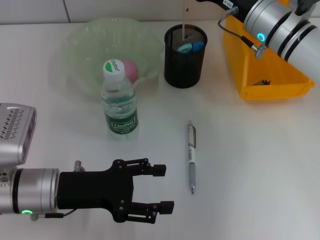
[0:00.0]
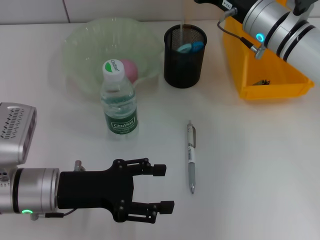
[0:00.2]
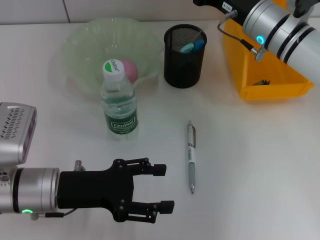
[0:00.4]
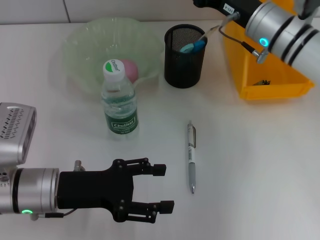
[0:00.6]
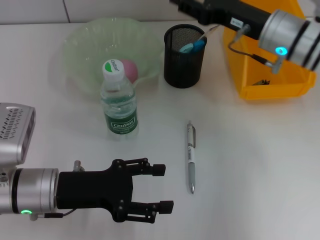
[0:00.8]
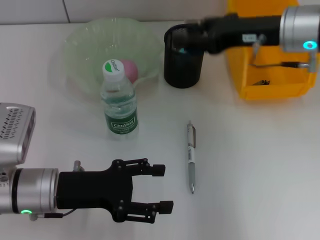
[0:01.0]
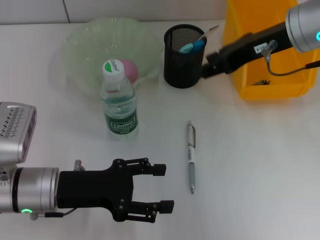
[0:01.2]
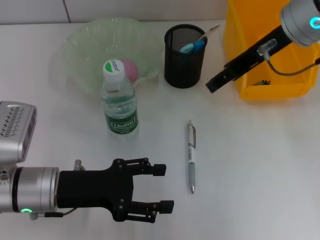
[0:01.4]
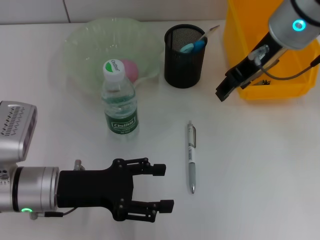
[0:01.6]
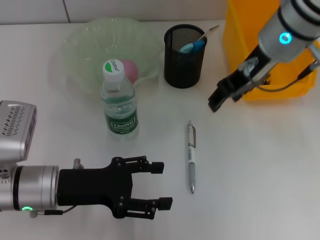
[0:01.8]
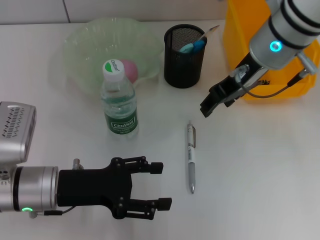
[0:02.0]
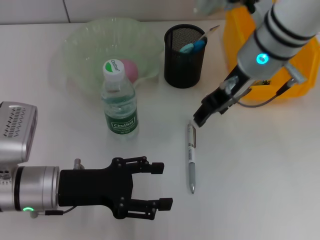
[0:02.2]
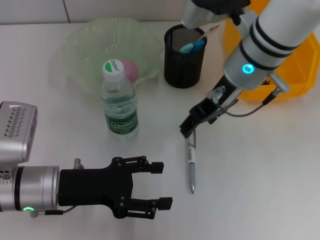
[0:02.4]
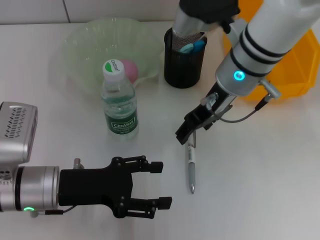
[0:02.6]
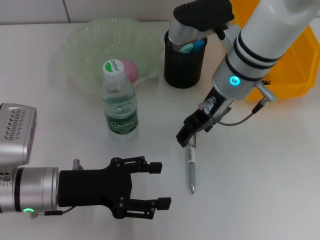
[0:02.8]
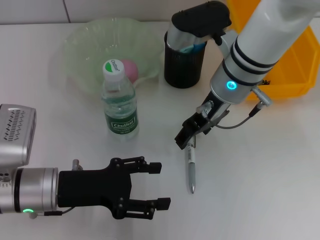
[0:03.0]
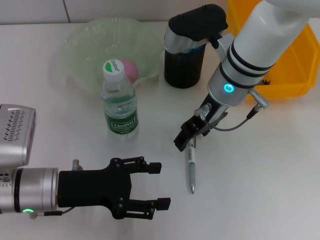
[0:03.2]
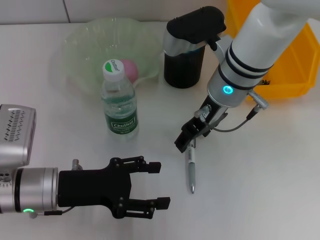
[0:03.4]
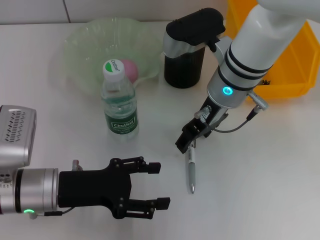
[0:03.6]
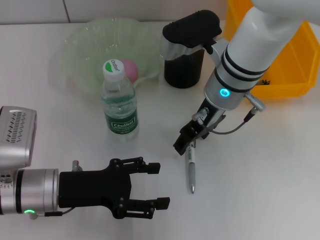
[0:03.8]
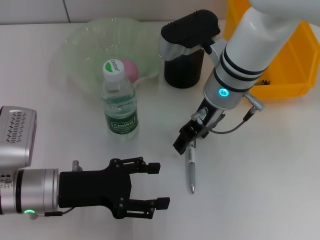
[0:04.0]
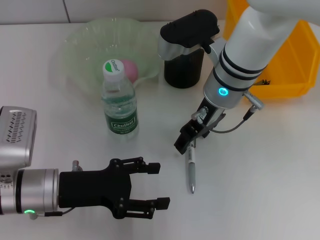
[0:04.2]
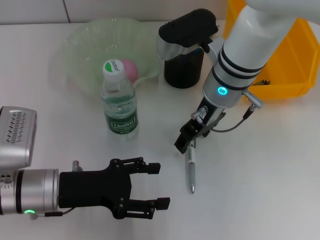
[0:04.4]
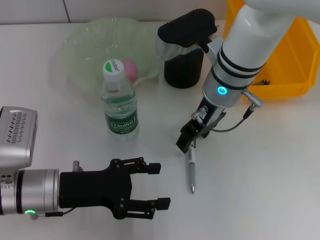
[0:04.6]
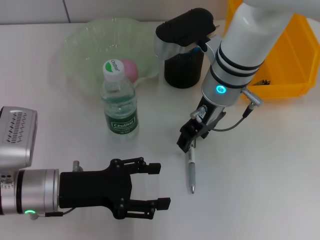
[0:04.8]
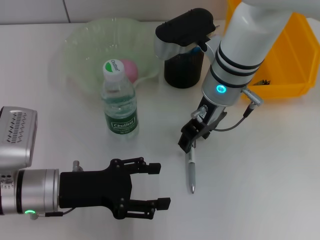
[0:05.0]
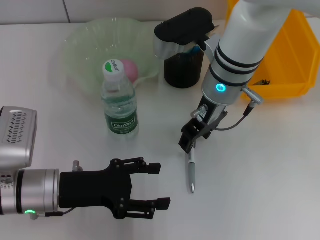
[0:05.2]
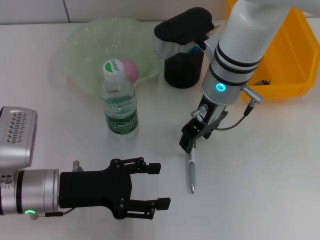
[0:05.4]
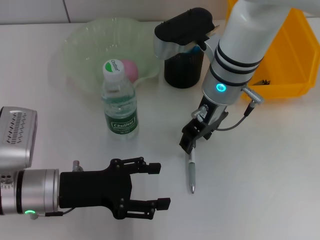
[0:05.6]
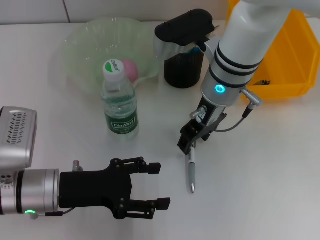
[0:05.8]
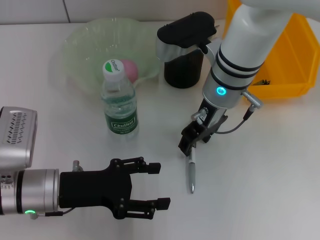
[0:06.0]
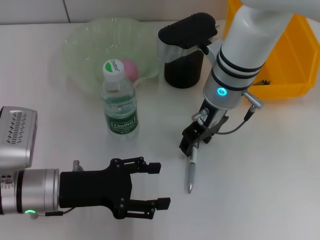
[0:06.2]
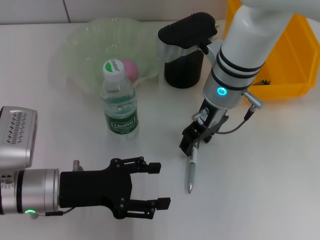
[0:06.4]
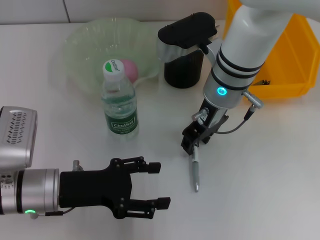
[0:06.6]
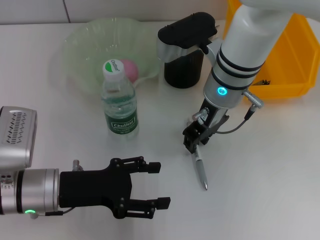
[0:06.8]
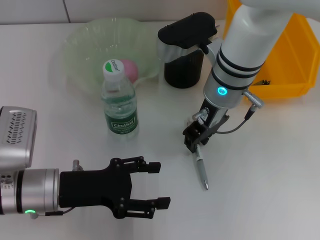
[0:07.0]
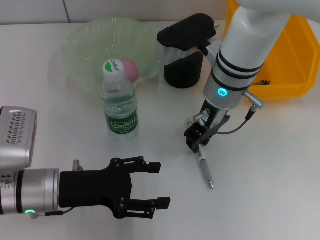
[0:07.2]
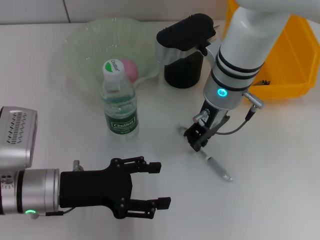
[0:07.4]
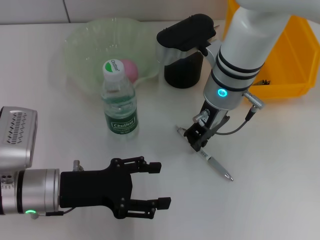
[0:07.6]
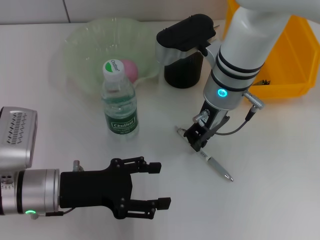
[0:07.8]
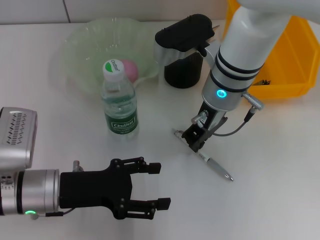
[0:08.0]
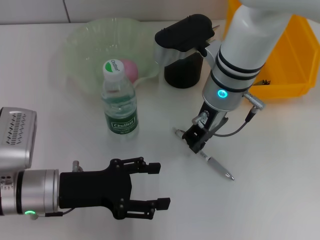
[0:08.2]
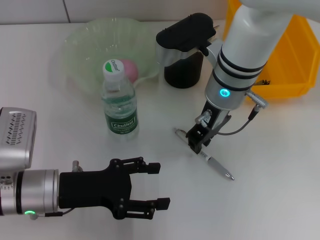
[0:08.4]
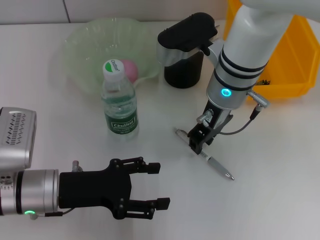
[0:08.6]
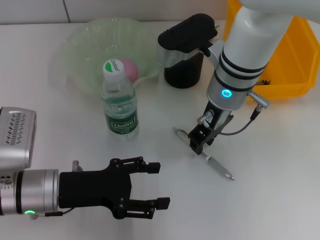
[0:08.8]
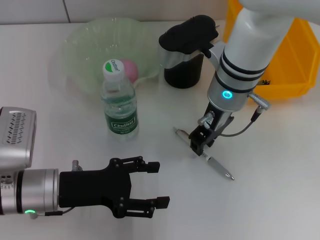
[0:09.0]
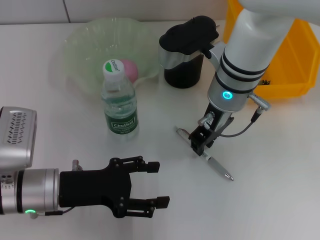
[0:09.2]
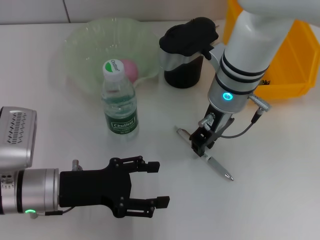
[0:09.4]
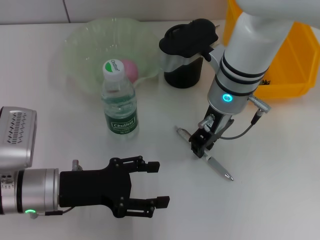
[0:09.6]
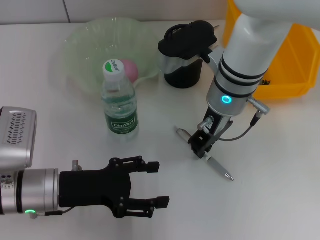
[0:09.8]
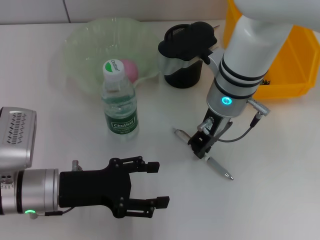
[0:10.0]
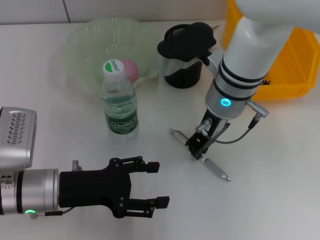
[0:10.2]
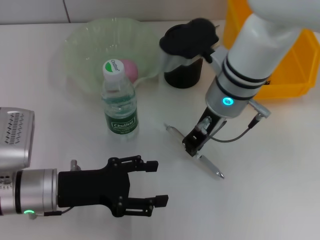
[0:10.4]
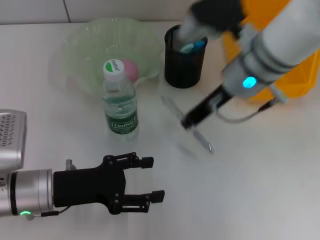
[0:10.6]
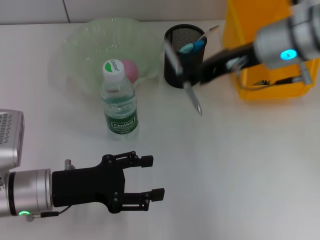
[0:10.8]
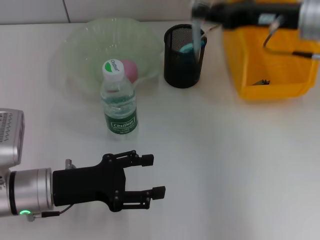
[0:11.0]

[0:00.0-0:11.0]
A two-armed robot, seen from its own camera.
Step, 0.6 to 10.0 s: Grab the gray spring-action pen with the right hand.
0.0 to 1.6 s: The right gripper is displaced upward by about 10 cm.
1.6 to 3.2 s: The right gripper is displaced downward and to the left by roughly 10 cm.
3.2 to 4.8 s: The grippers stay close to where they were, moving slightly.
4.8 to 6.2 s: Both grippers stay put.
6.2 to 7.8 s: The right gripper closes.
7.8 to 9.4 s: The two grippers keep their place.
9.4 to 11.0 s: The right gripper moves to the right and upward, about 15 cm.

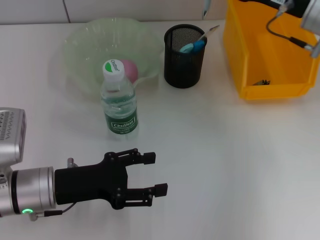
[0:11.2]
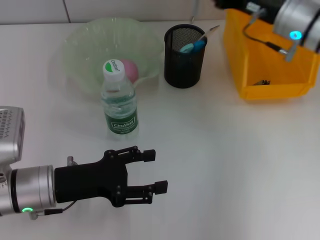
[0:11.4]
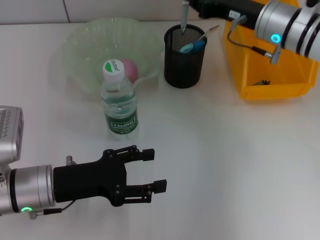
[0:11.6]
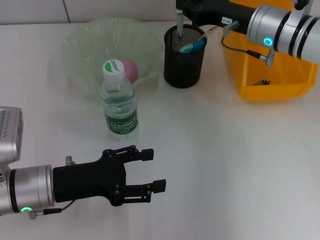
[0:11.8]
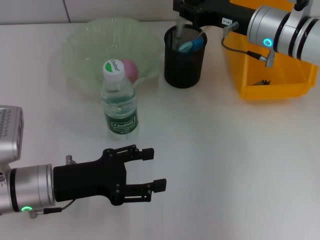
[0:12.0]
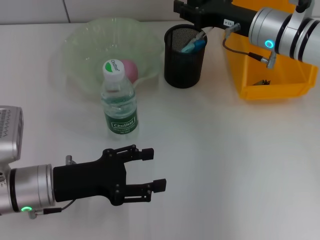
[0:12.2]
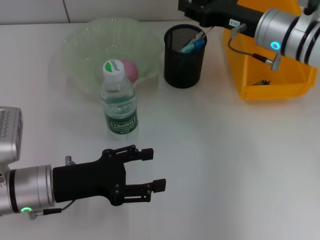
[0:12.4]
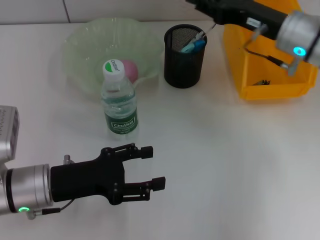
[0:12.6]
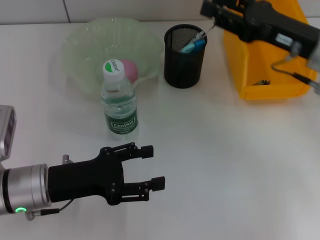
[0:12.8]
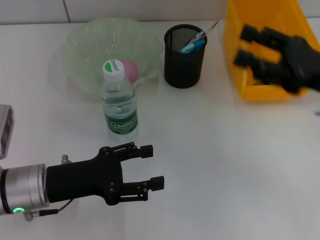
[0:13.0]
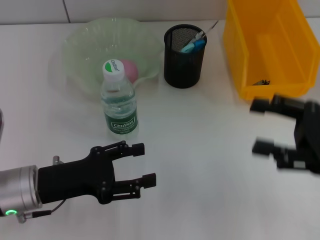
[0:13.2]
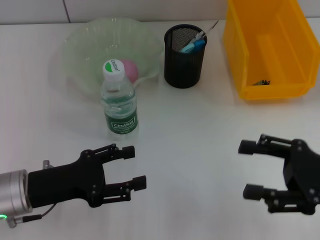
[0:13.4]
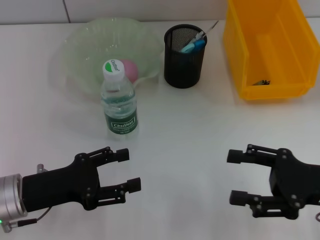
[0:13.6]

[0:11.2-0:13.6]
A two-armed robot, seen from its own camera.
Step, 11.2 to 12.2 s: Place the gray spring-action pen into the pen holder with the right hand.
11.2 to 12.4 s: The right gripper shifts by about 5 cm, and opens.
12.4 to 13.6 s: The right gripper travels backward and to the right by some 20 cm, and opens its fingers.

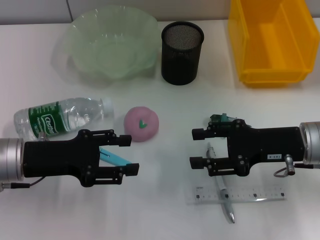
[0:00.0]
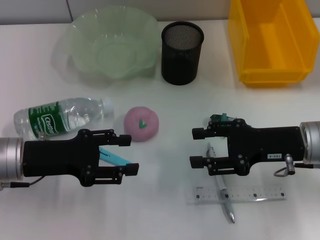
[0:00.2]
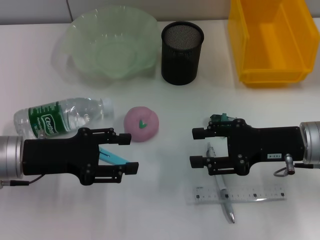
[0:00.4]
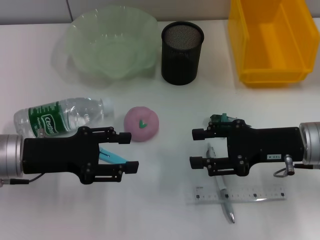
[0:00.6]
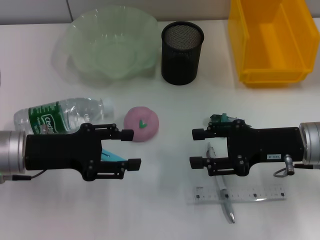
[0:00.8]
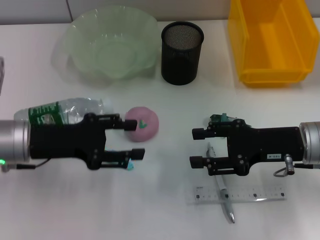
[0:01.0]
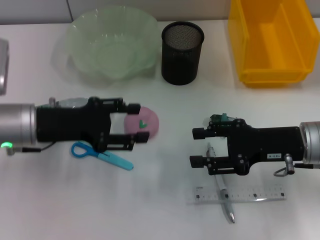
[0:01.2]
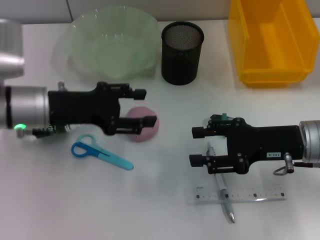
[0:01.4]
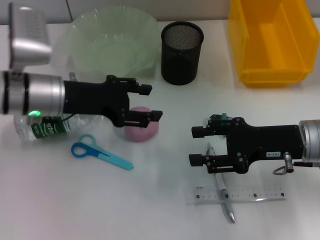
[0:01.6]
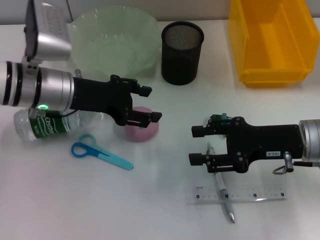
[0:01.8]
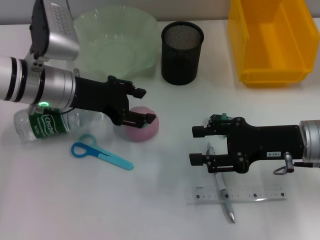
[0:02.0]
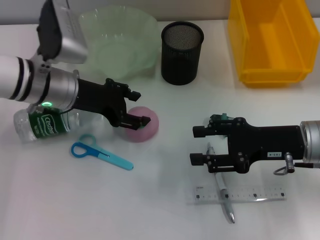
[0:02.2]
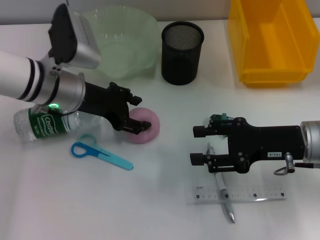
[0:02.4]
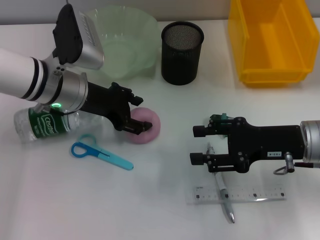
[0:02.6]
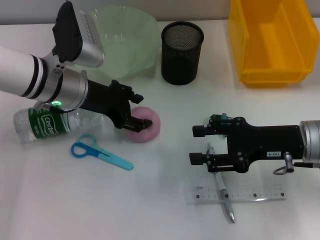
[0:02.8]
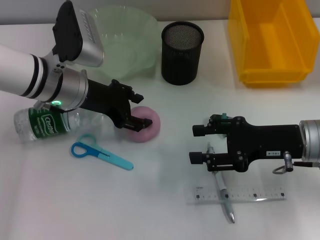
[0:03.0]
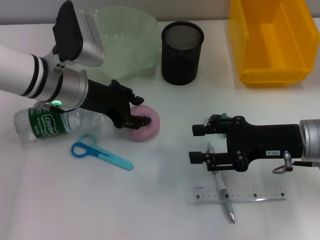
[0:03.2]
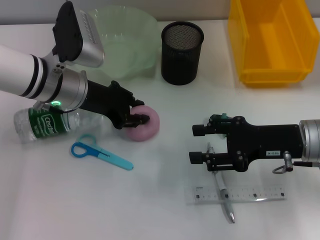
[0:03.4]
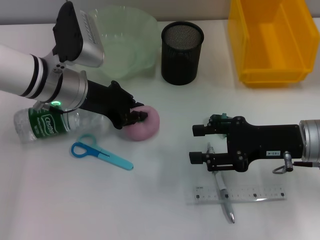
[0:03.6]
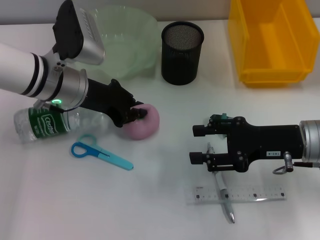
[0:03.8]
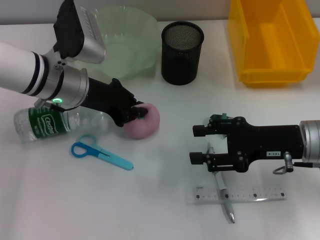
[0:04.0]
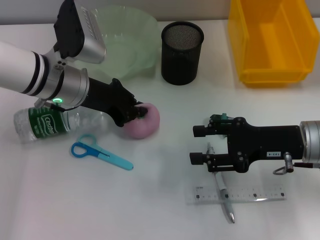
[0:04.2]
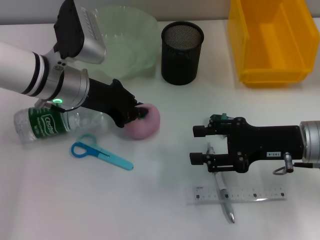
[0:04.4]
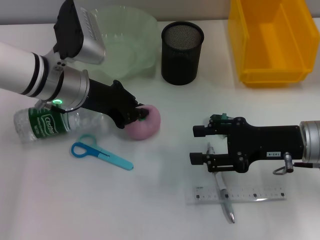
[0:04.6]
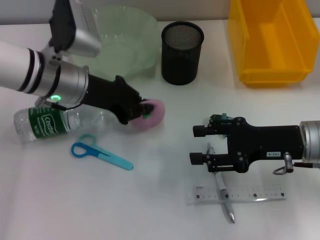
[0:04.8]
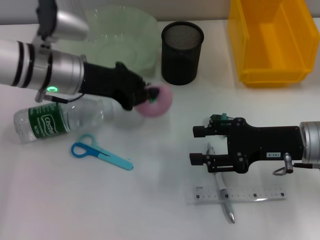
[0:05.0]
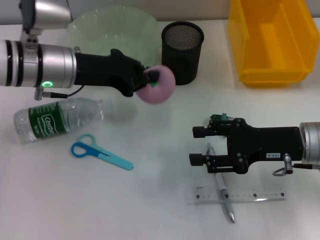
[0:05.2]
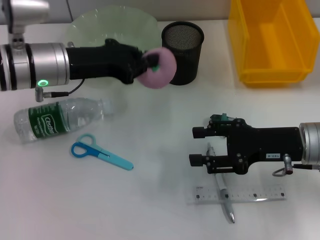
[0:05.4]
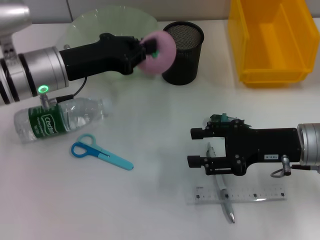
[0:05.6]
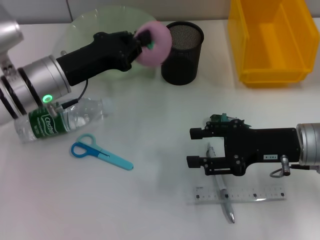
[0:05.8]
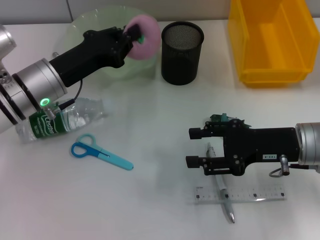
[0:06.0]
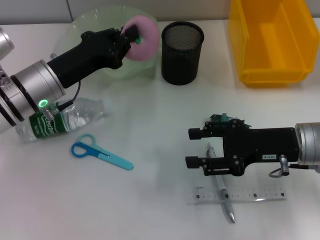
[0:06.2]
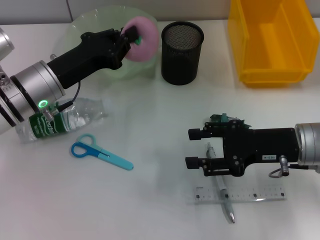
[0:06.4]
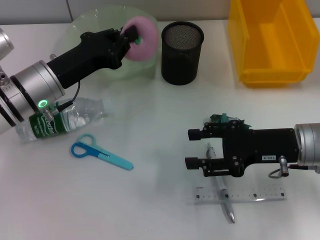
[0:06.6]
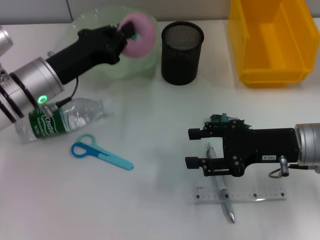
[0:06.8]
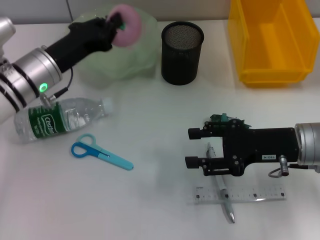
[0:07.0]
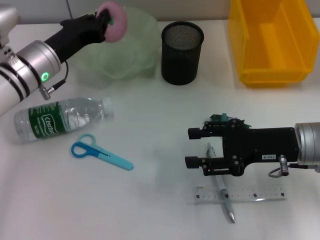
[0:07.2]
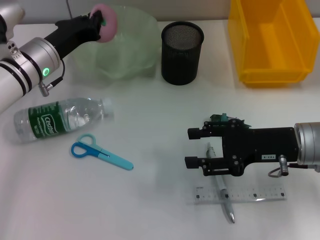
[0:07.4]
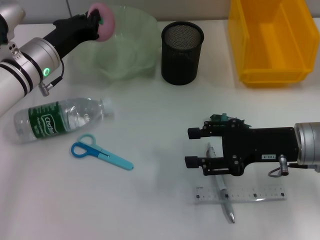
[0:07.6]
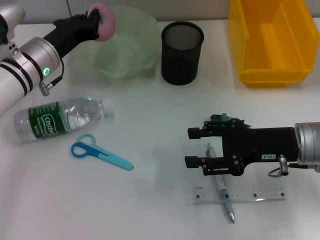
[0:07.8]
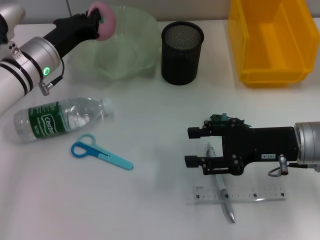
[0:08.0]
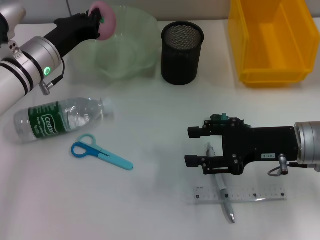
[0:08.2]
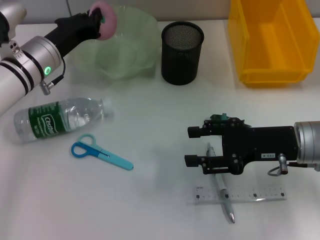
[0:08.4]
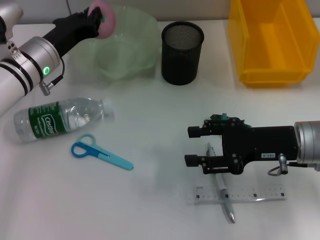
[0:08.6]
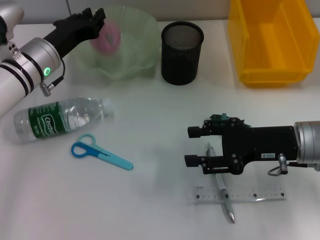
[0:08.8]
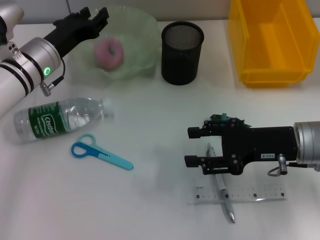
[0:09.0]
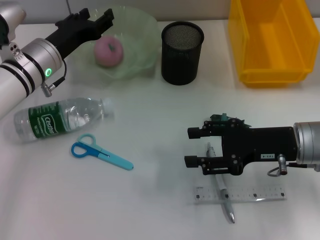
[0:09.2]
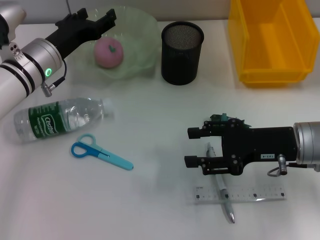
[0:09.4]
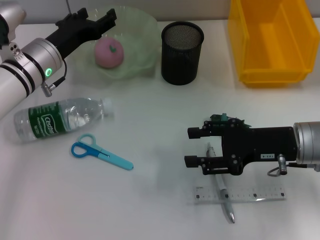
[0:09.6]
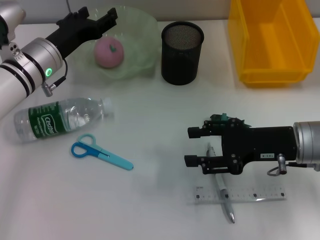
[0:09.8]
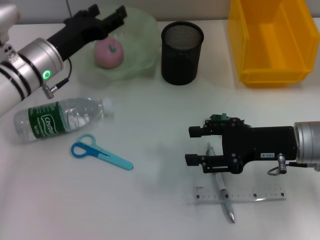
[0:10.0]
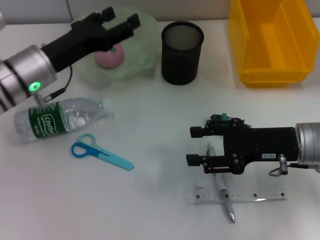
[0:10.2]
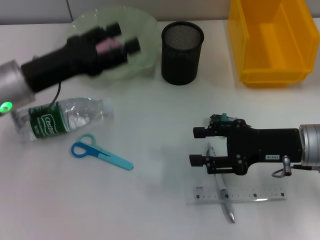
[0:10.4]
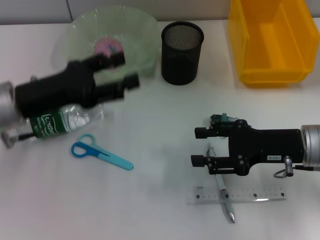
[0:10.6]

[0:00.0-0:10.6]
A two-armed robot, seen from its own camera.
Step, 0.0 to 3.6 s: Grab the peach with the left hand.
Step, 3.8 to 9.2 s: Place the peach into the fruit bowl with the left hand.
0.0 to 1.6 s: The left gripper travels forward by some 10 cm.
3.0 to 4.6 s: The left gripper closes.
4.6 to 6.0 s: The left gripper ends up roughly 5 cm from where it was.
6.0 to 7.6 s: The left gripper moves forward, some 5 cm.
7.6 to 9.0 s: Both grippers stay about where they are.
9.0 to 10.6 s: The left gripper is displaced backward by about 10 cm, and opens up.
